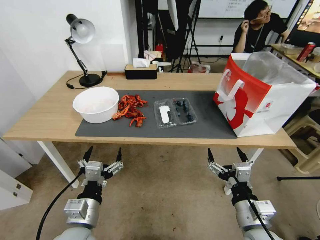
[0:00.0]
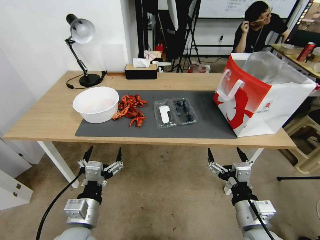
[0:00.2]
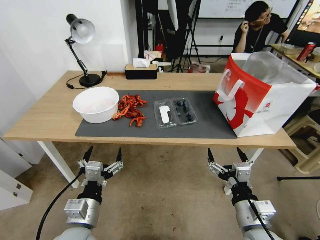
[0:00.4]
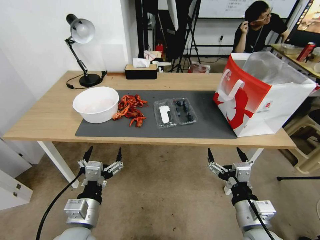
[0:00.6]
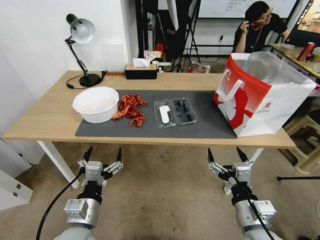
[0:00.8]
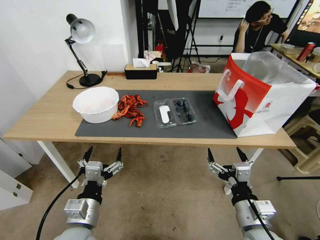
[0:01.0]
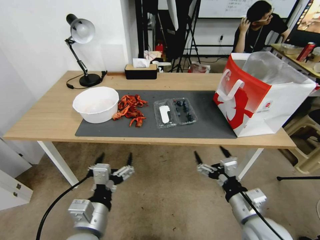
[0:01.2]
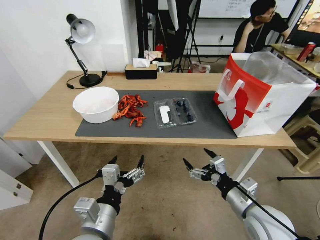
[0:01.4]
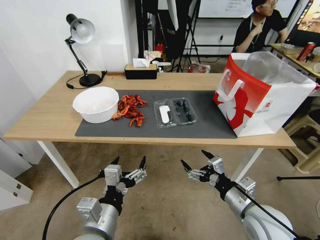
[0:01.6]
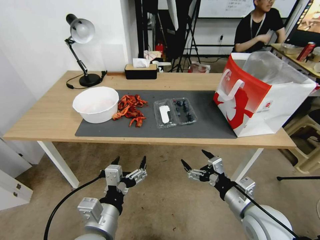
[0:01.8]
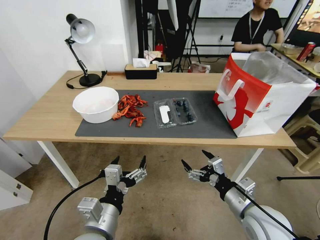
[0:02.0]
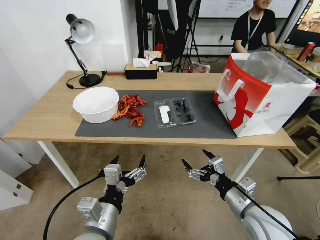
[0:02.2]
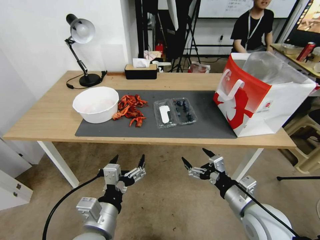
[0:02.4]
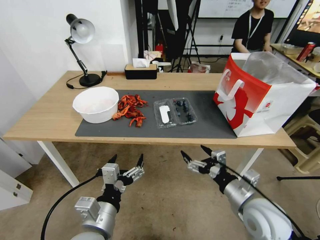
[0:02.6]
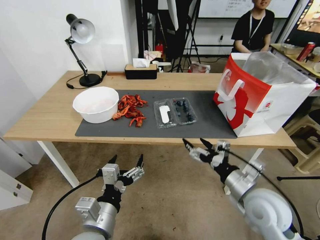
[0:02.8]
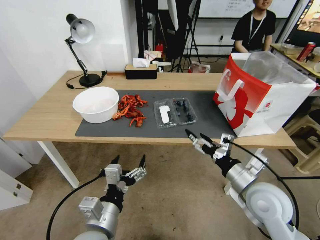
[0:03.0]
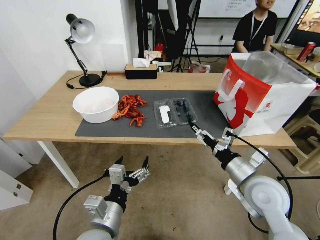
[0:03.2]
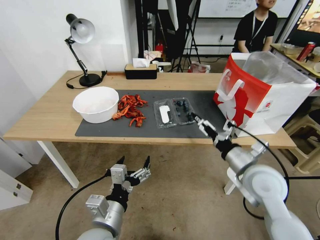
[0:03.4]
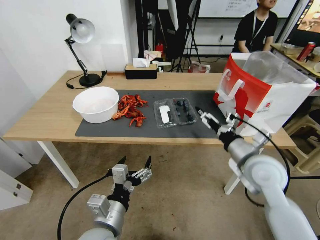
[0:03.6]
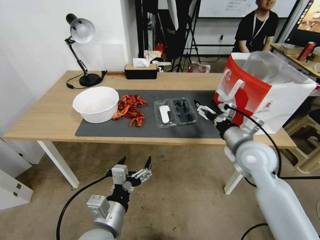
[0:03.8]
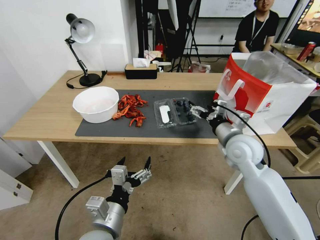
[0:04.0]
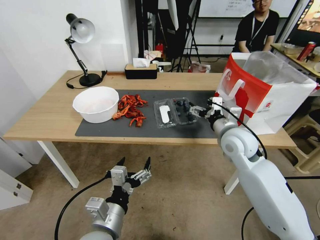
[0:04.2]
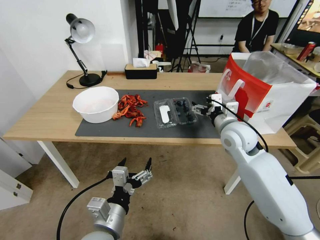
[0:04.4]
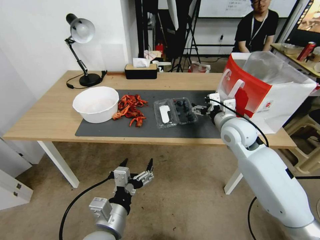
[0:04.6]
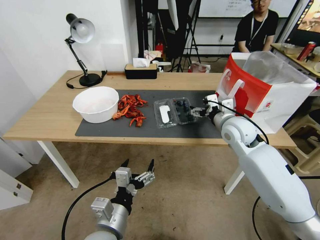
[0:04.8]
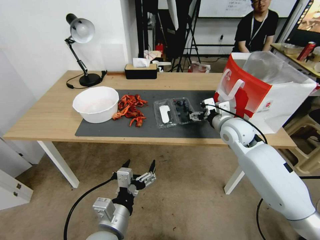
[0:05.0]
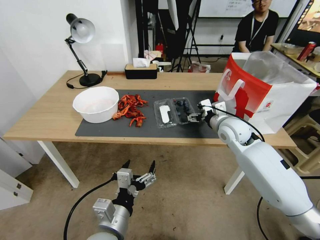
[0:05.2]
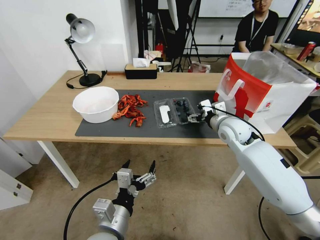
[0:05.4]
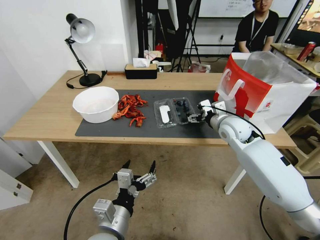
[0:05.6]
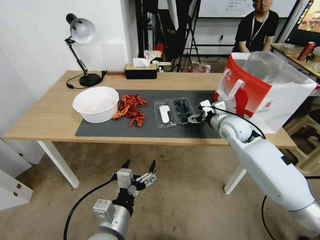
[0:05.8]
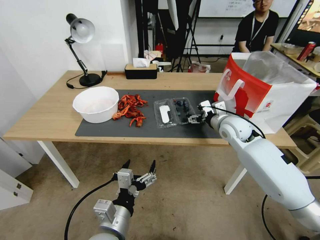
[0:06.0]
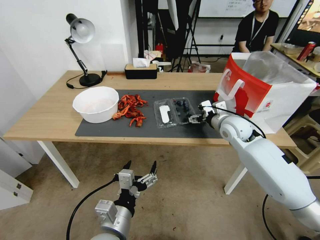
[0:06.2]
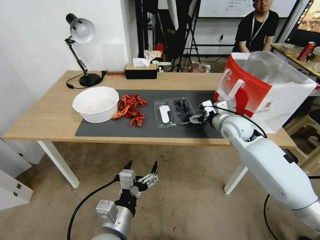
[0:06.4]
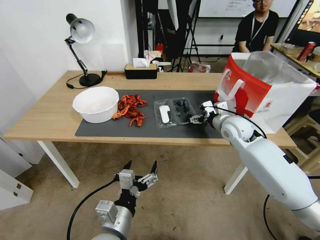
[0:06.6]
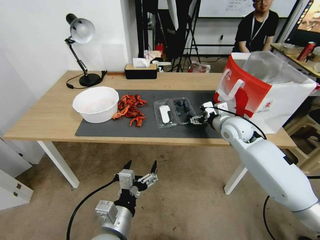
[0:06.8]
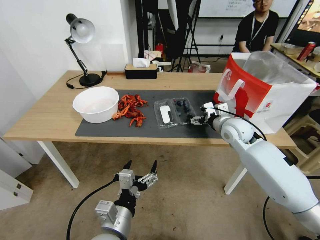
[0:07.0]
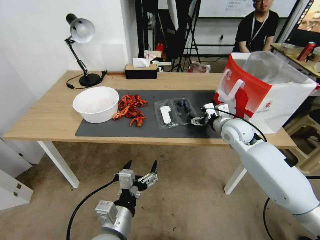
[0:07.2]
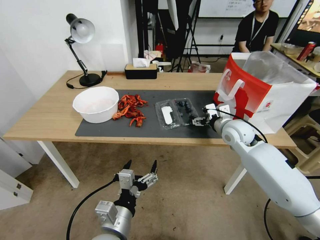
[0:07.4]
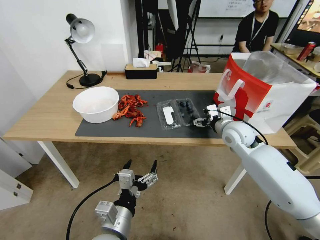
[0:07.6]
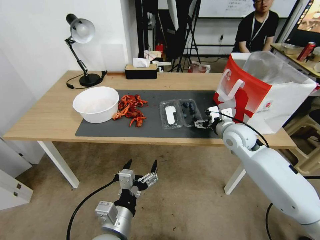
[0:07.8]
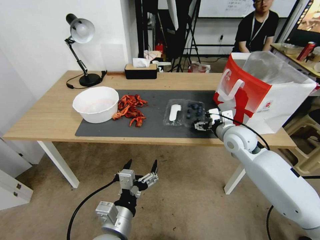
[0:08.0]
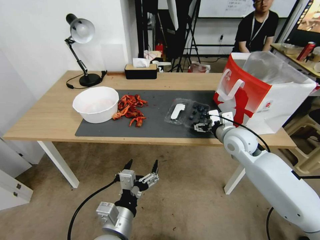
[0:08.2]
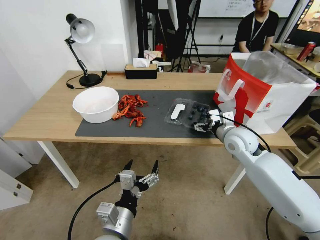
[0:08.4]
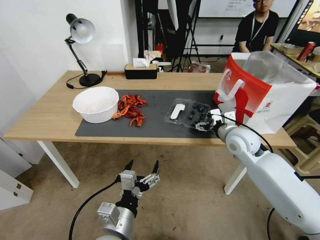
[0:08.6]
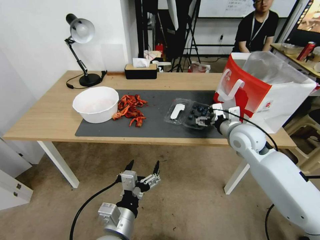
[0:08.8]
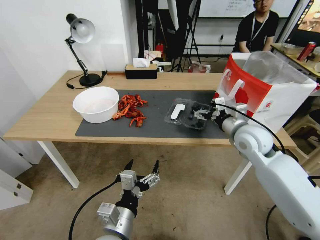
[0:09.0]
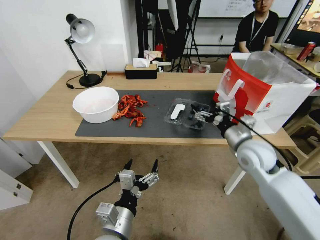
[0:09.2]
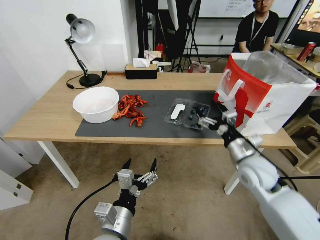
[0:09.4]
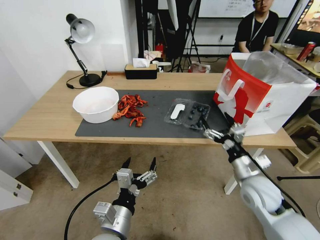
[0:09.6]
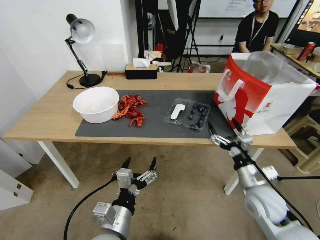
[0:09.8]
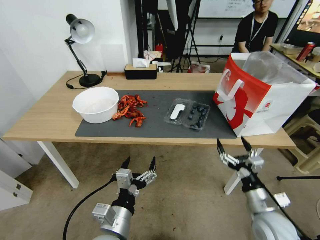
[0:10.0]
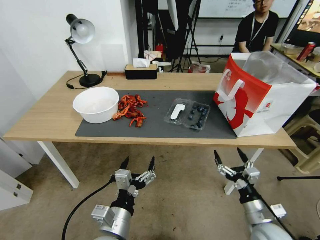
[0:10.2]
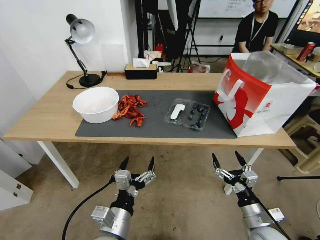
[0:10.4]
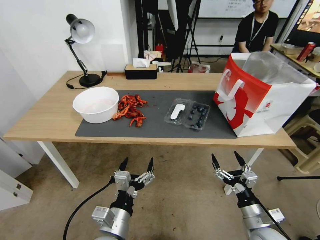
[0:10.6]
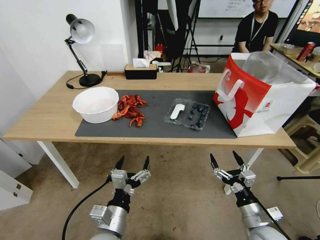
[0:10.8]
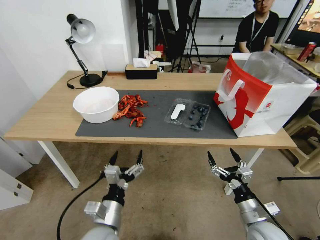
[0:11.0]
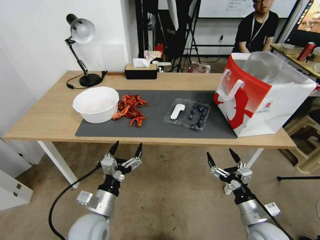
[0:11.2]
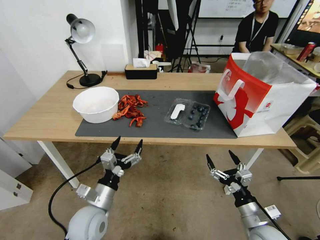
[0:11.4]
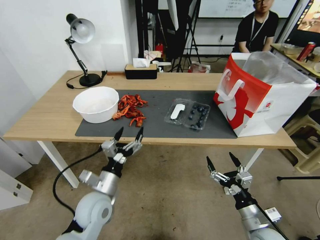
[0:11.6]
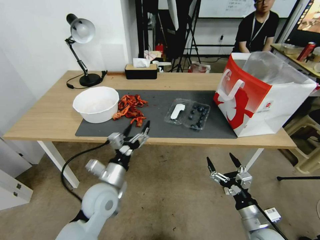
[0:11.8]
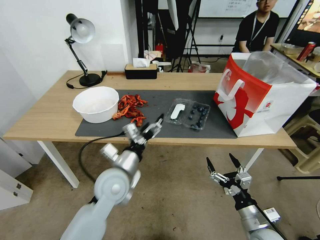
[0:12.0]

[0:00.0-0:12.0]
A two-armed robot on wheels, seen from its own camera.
Task of the whole recording: Close the takeout container lid, then place the container into the takeout bag.
0:01.6 to 0:03.0: The right gripper moves about 5 cm.
0:03.0 to 0:04.4: The right gripper heads forward, covering about 15 cm.
0:04.4 to 0:06.0: The right gripper goes about 5 cm forward.
0:06.0 to 0:07.6: The grippers move only a little.
0:07.6 to 0:09.0: The right gripper moves some 5 cm.
0:09.0 to 0:10.4: The right gripper travels backward and downward by approximately 30 cm.
0:10.4 to 0:12.0: The left gripper is displaced forward by about 15 cm.

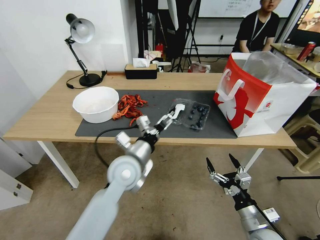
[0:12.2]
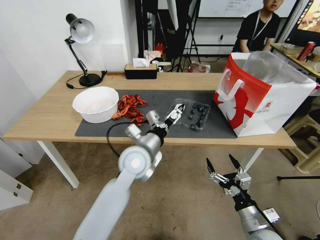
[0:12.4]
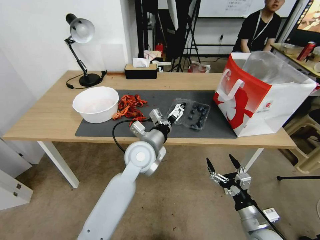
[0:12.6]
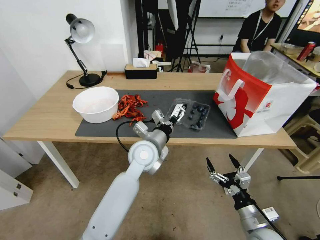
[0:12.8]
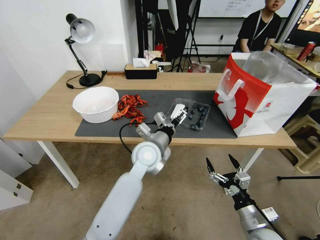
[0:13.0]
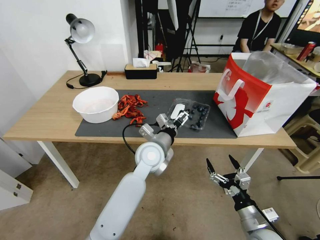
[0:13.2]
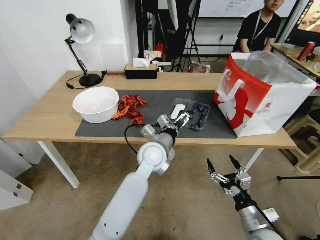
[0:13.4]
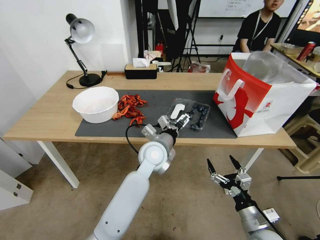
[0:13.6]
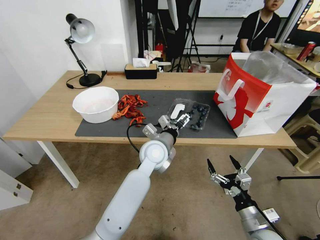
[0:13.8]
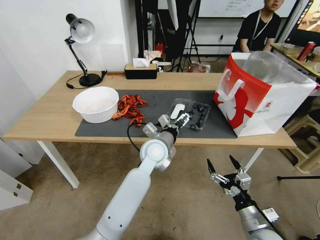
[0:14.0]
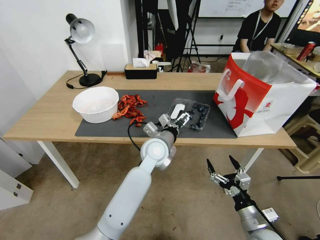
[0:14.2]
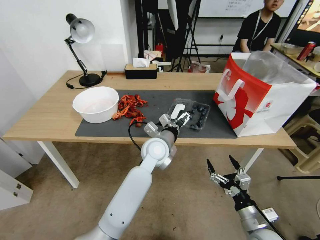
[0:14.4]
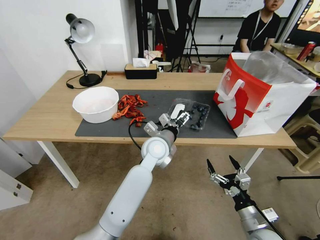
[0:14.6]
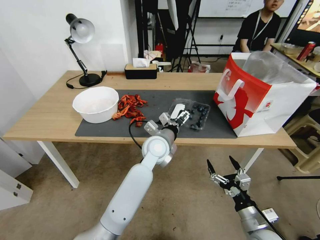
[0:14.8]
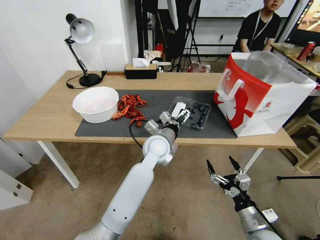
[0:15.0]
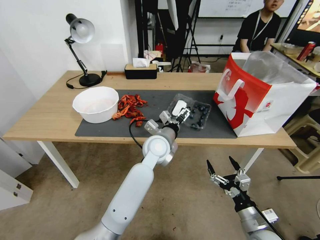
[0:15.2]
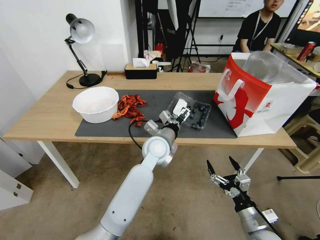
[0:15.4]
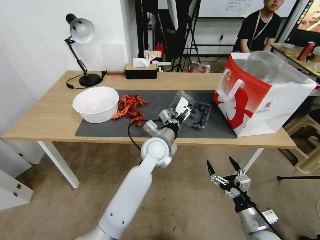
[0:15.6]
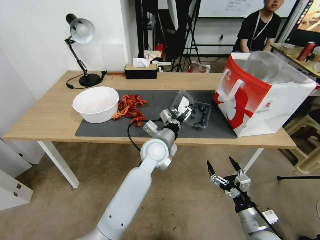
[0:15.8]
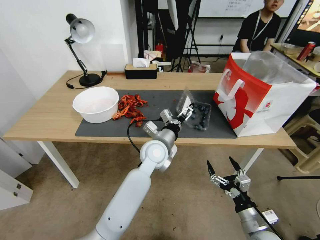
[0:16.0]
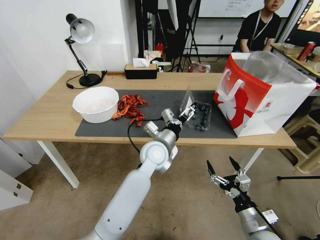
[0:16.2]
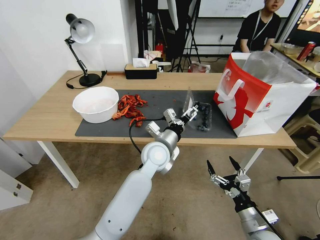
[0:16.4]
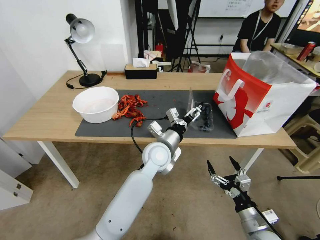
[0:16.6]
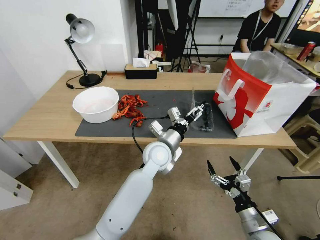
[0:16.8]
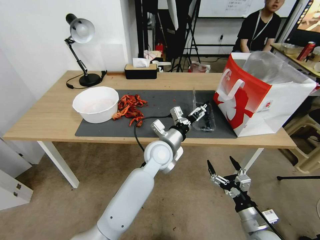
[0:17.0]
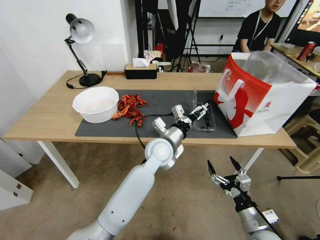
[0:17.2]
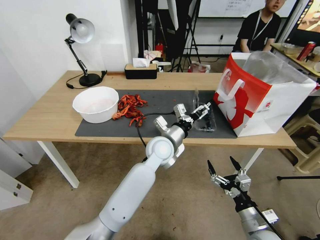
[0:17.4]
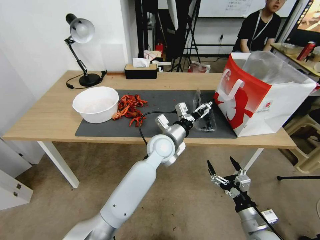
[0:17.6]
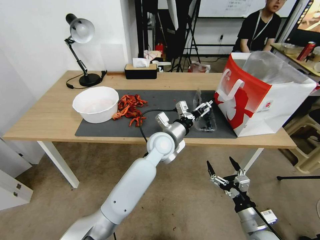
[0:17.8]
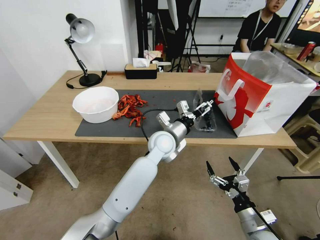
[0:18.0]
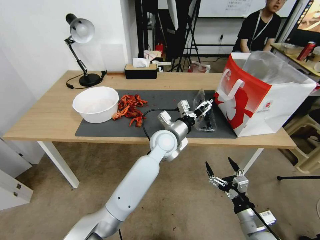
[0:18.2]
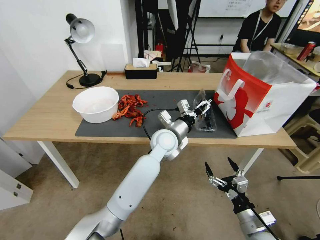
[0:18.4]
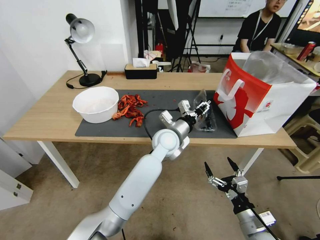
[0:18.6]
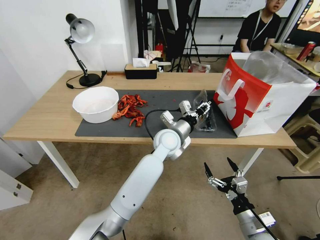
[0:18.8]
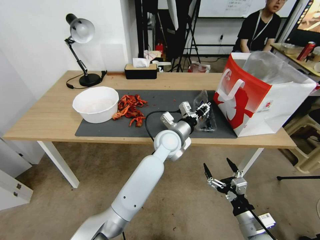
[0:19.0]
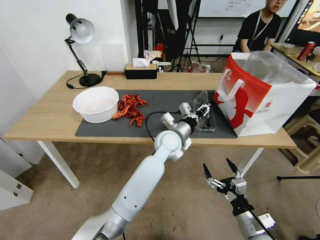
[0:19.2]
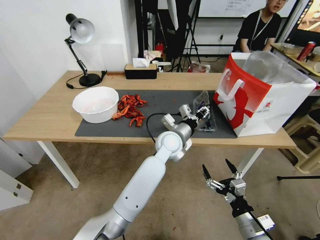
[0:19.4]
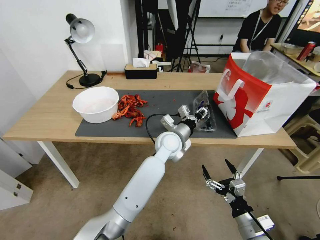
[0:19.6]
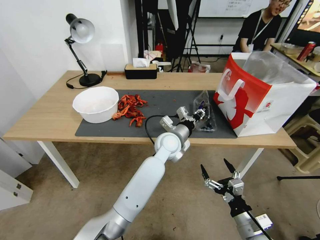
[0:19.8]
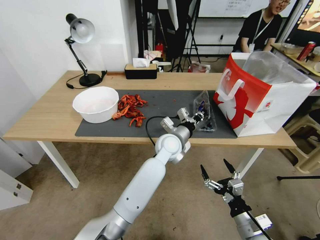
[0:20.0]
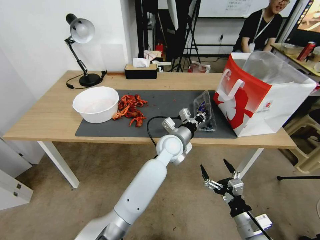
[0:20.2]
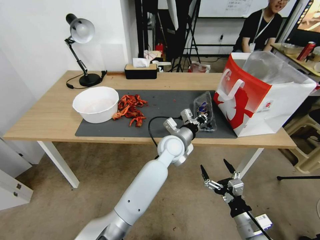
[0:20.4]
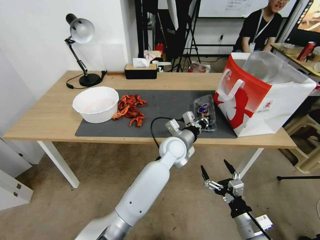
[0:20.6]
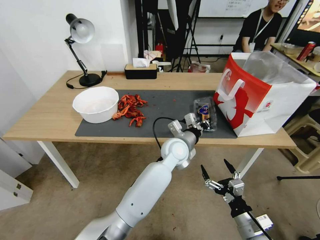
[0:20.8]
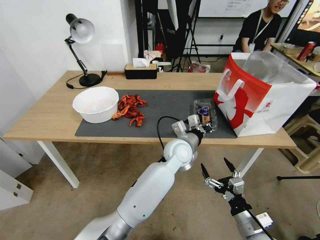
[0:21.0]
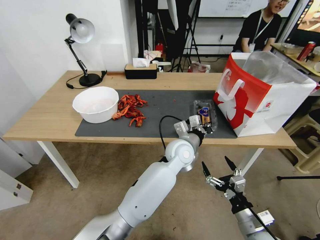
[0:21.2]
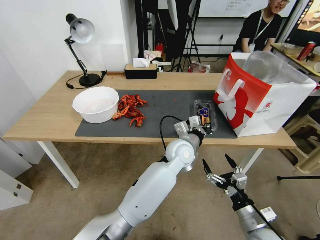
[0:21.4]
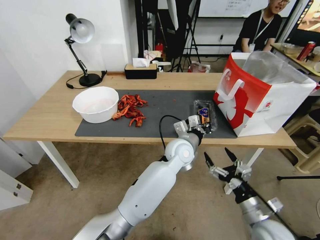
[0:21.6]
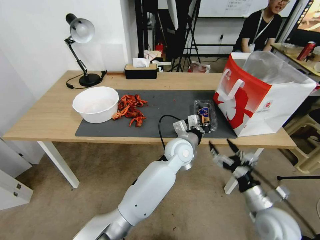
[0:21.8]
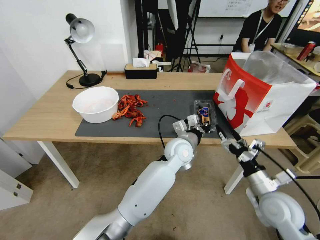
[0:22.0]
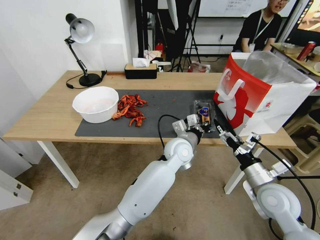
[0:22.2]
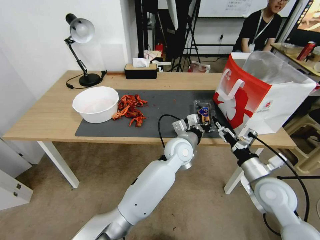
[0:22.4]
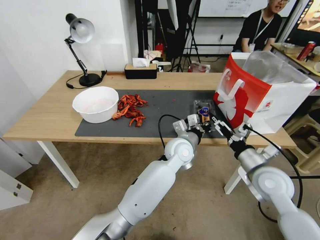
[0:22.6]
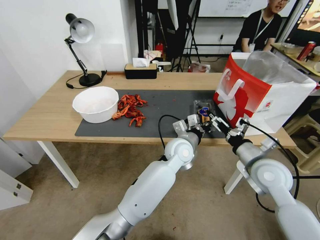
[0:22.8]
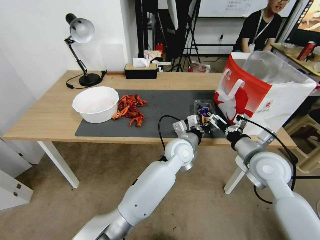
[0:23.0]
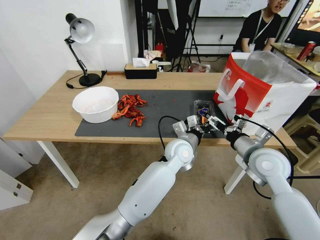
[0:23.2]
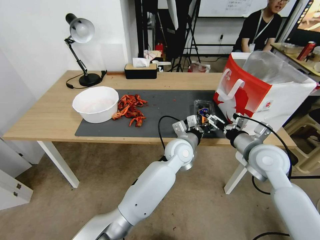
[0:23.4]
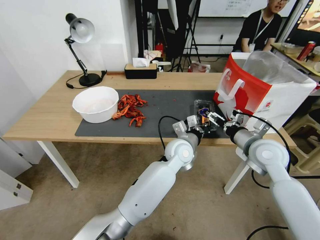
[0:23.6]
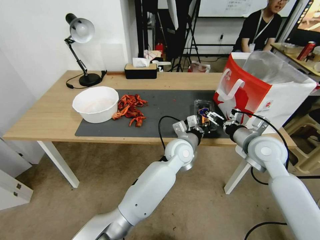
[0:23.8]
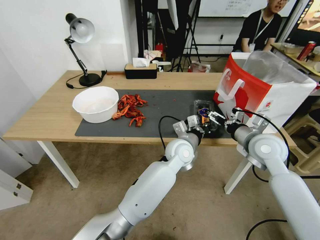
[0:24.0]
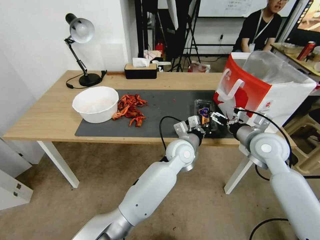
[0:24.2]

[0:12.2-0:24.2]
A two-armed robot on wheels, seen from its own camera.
Task of the whole recording: Close the takeout container lid, then place the container into the takeout bag.
0:12.2 to 0:13.8: The left gripper is displaced to the right and forward by roughly 15 cm.
0:13.8 to 0:16.6: The grippers stay close to where they were, moving slightly.
0:16.6 to 0:18.2: The left gripper ends up about 5 cm from where it was.
0:18.2 to 0:19.8: The left gripper closes its fingers.
0:21.2 to 0:22.6: The right gripper goes some 20 cm forward and upward.
0:22.6 to 0:24.2: The right gripper goes about 10 cm forward and upward.
